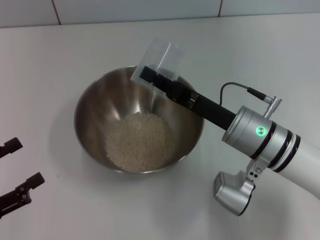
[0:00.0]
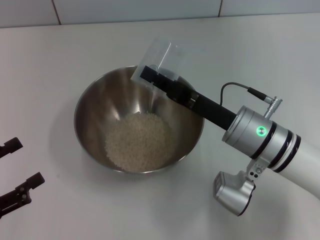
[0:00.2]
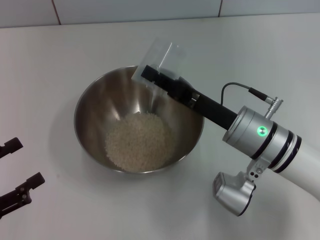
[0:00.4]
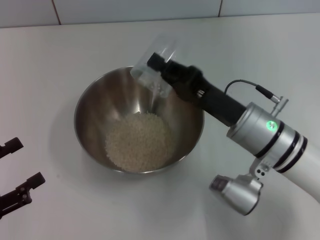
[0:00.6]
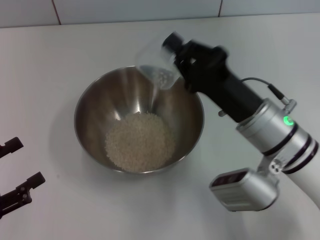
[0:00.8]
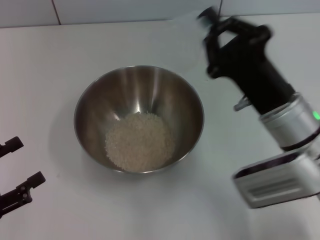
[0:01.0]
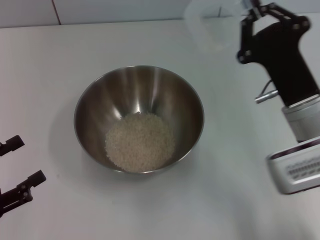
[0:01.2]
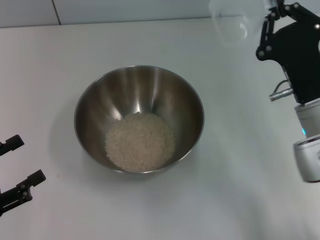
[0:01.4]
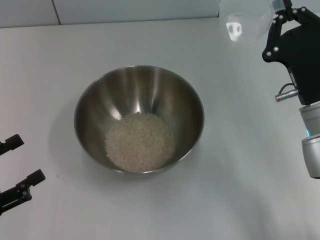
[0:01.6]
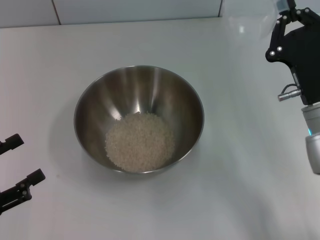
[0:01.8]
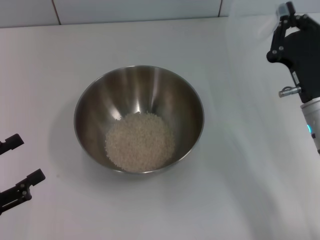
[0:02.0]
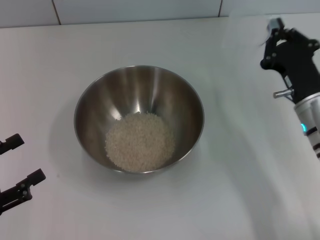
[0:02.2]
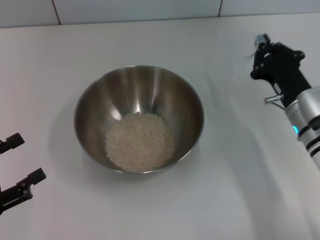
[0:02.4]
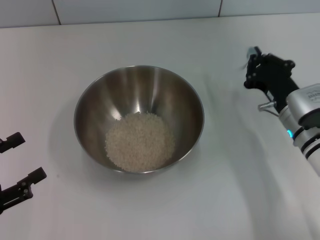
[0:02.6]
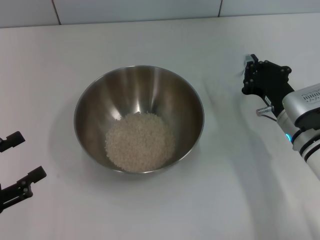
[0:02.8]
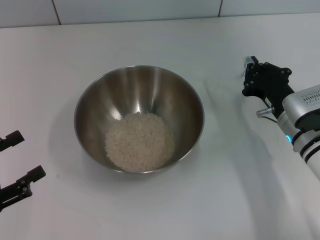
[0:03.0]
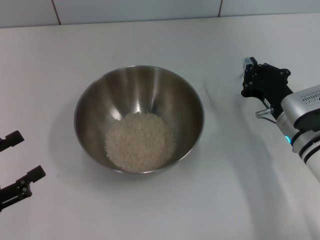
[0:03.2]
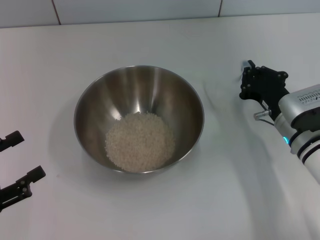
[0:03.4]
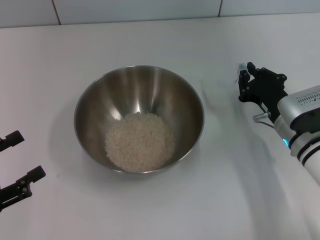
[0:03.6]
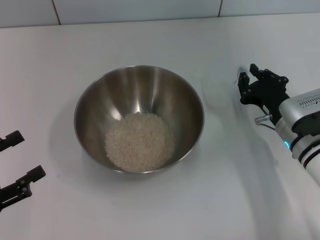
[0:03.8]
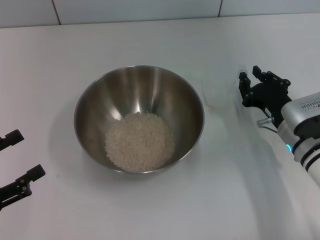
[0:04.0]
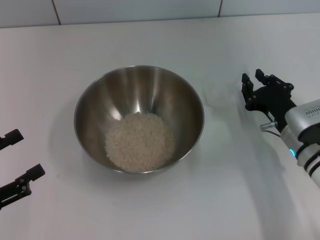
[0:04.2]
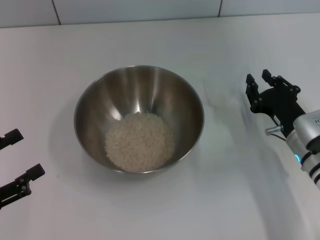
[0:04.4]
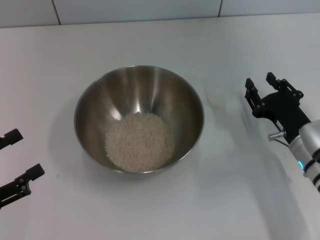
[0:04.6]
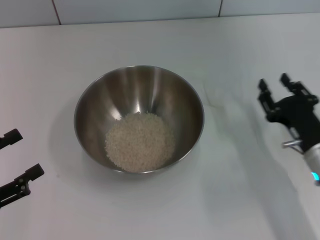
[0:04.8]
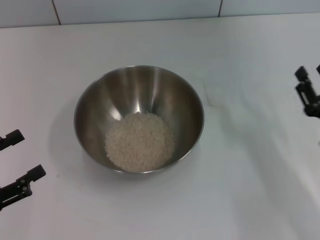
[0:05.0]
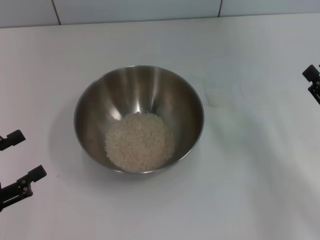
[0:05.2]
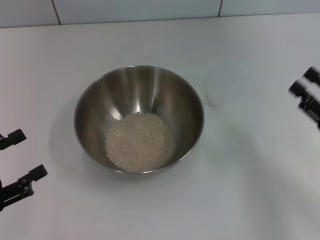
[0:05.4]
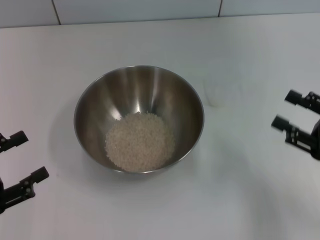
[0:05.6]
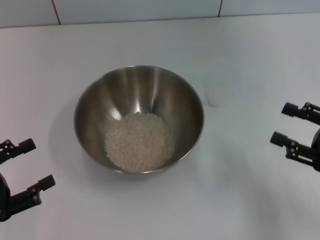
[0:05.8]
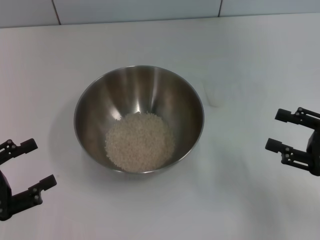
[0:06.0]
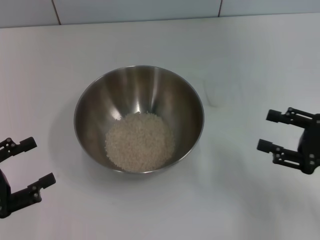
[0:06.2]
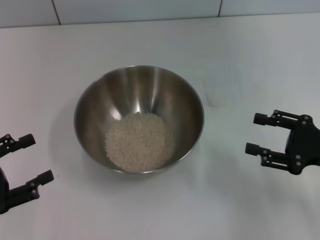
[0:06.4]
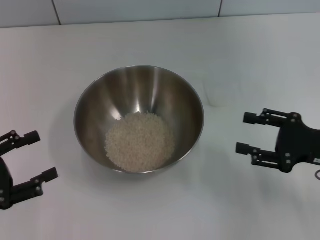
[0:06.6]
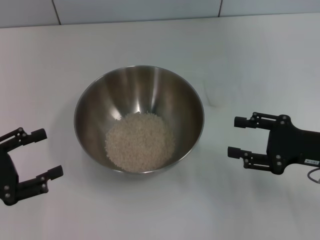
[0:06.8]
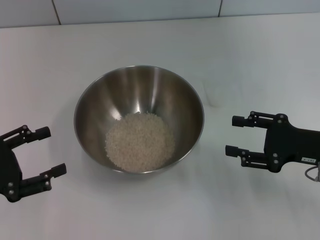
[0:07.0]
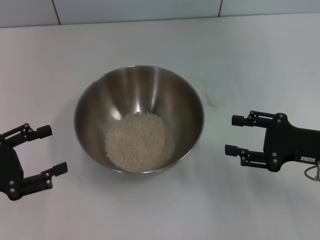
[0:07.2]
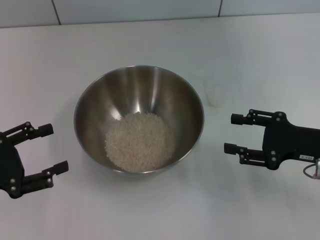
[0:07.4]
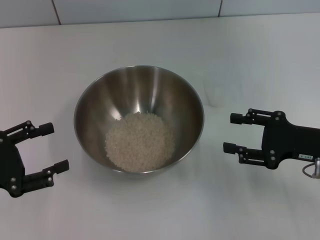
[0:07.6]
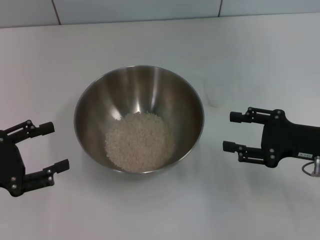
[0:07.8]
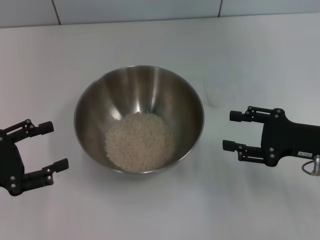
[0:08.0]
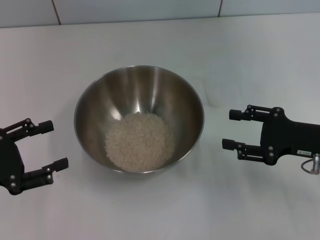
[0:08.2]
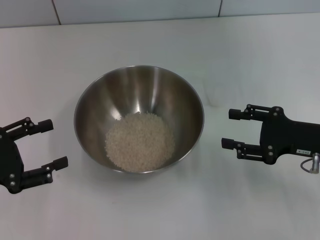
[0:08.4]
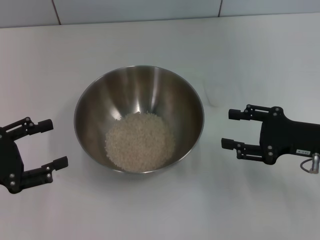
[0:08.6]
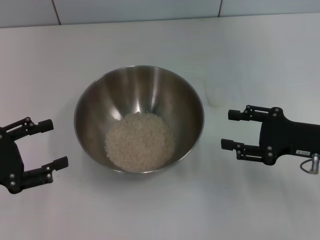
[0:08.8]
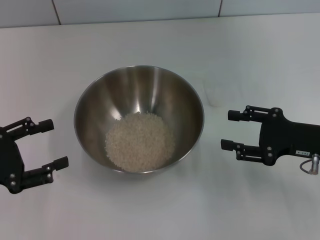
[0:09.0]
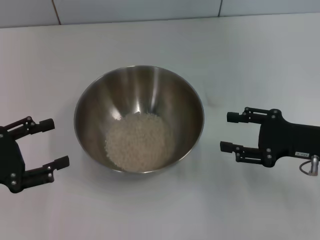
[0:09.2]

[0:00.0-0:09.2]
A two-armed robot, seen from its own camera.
Task of the whole recording: Place the bowl in the middle of the table with one hand and pour the rice from the grain cup into it with the other hand.
Step, 0:01.2 to 0:04.4: Place the cup on the table with the right gripper.
0:00.0 to 0:01.6: The right gripper shifts about 5 cm to the right.
0:01.6 to 0:03.0: The right gripper travels downward by roughly 5 cm.
0:03.0 to 0:04.6: The right gripper opens its fingers.
0:04.6 to 0:06.2: The right gripper travels to the right and upward by some 10 cm, and opens.
0:06.2 to 0:07.6: The right gripper shifts by some 5 cm.
0:07.6 to 0:09.2: The two grippers keep their place.

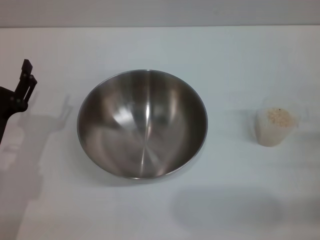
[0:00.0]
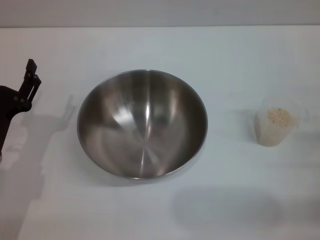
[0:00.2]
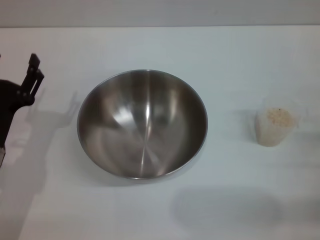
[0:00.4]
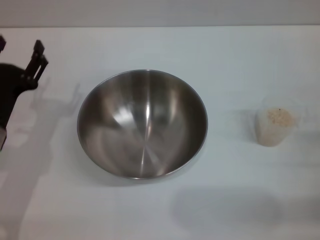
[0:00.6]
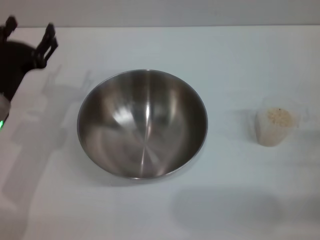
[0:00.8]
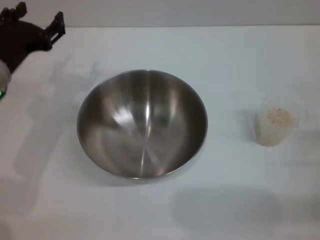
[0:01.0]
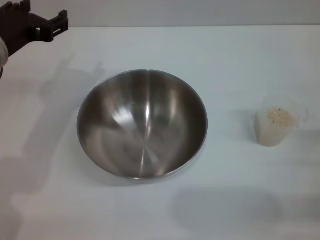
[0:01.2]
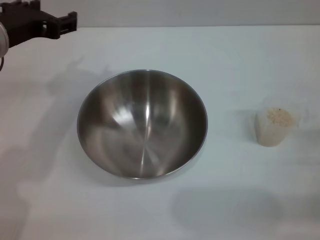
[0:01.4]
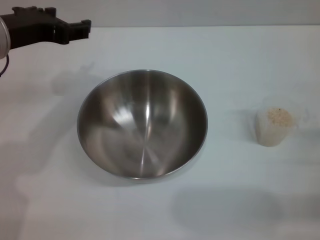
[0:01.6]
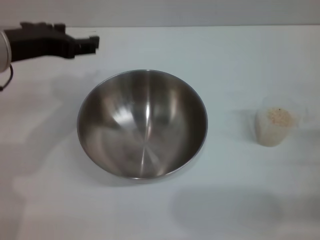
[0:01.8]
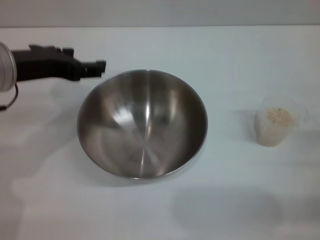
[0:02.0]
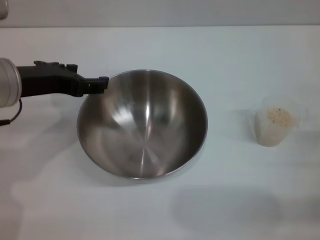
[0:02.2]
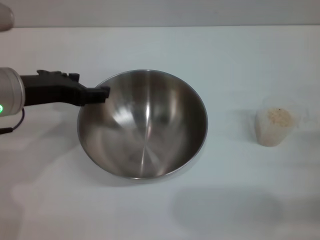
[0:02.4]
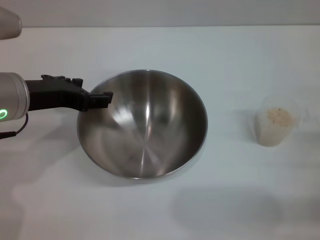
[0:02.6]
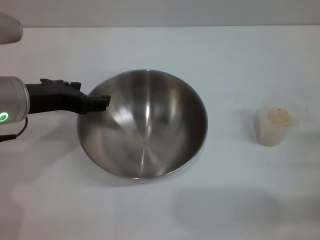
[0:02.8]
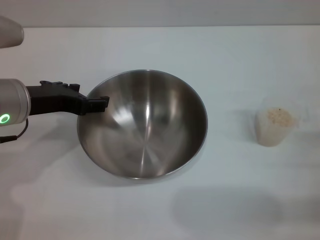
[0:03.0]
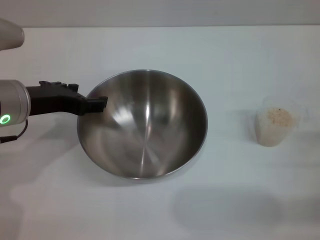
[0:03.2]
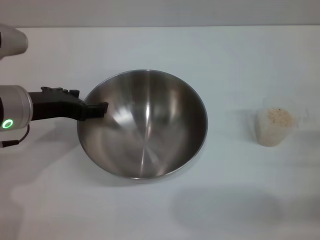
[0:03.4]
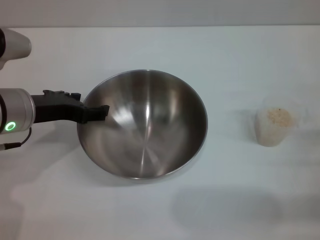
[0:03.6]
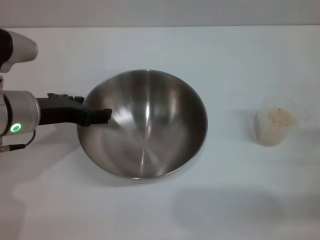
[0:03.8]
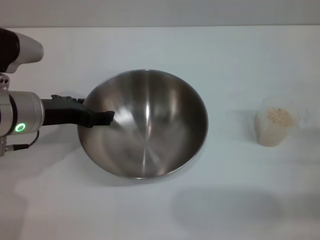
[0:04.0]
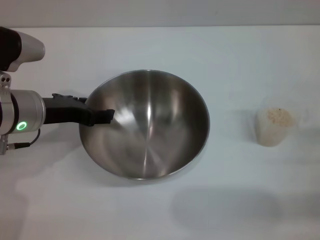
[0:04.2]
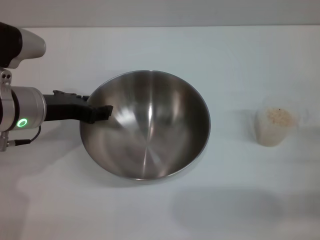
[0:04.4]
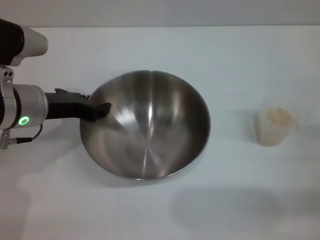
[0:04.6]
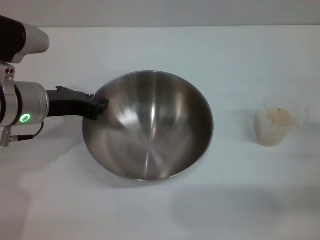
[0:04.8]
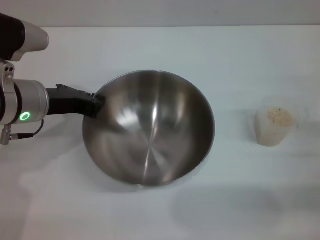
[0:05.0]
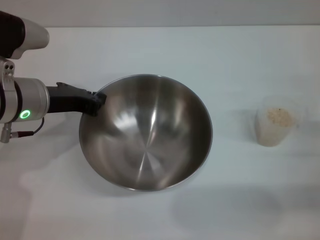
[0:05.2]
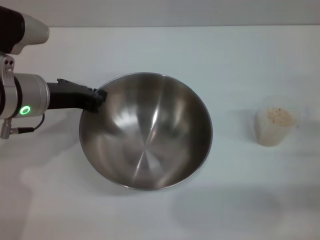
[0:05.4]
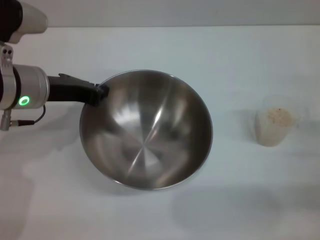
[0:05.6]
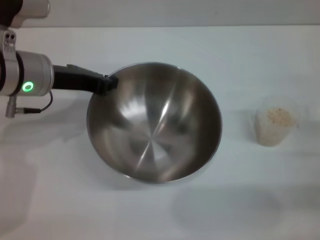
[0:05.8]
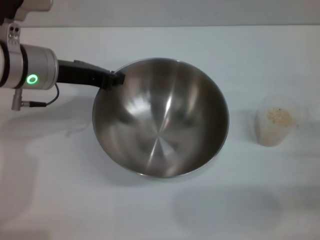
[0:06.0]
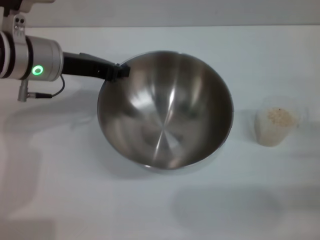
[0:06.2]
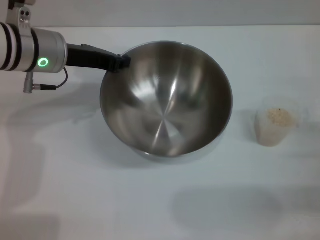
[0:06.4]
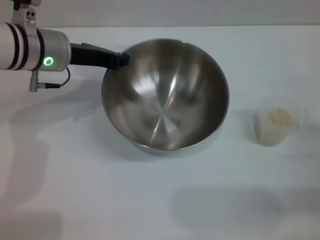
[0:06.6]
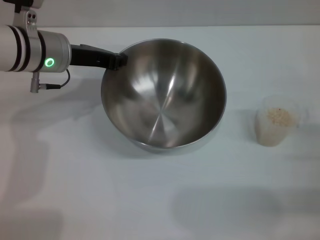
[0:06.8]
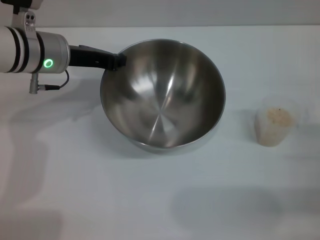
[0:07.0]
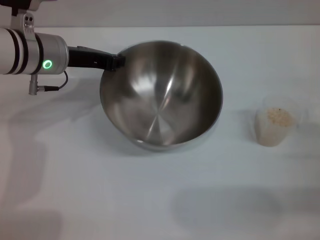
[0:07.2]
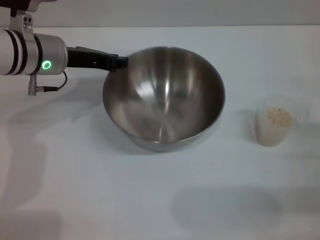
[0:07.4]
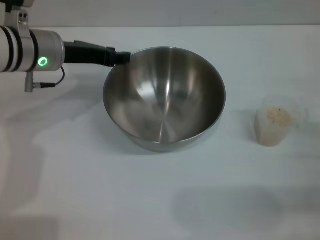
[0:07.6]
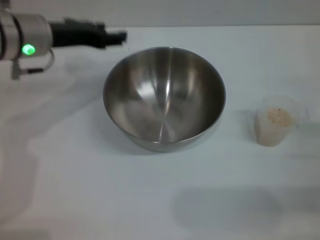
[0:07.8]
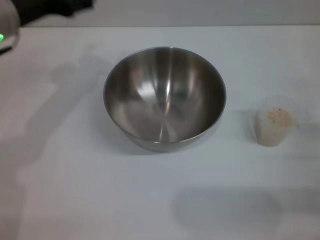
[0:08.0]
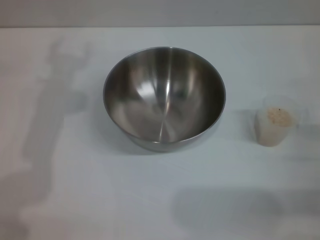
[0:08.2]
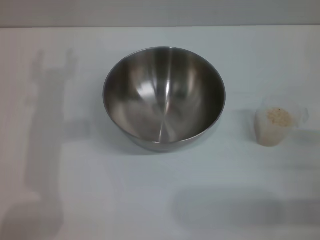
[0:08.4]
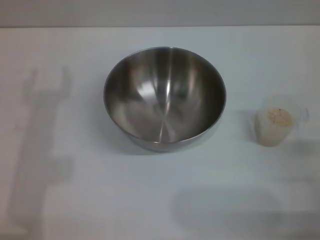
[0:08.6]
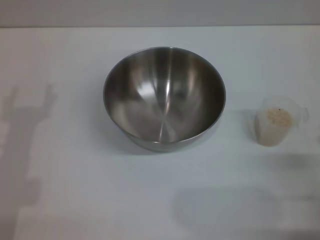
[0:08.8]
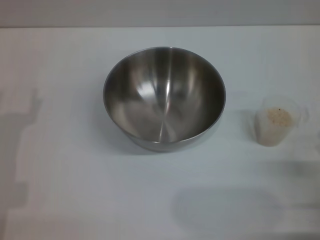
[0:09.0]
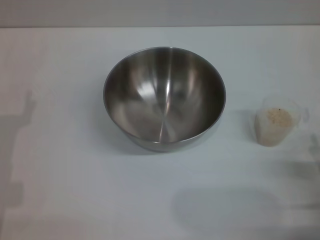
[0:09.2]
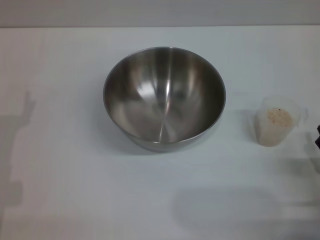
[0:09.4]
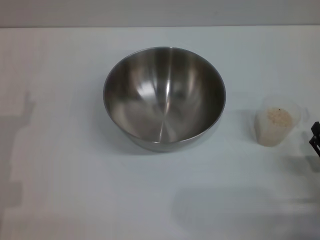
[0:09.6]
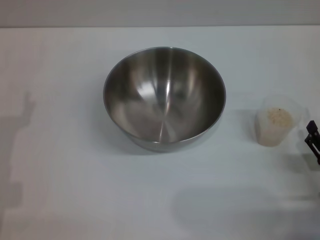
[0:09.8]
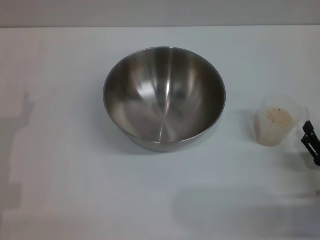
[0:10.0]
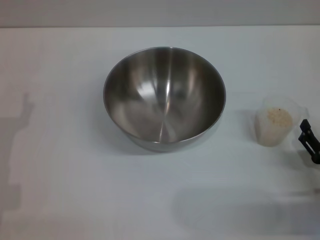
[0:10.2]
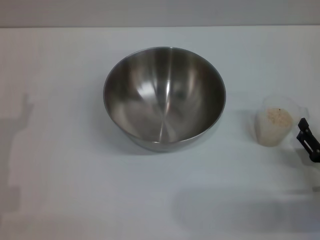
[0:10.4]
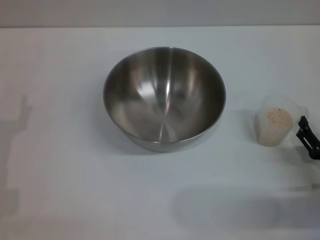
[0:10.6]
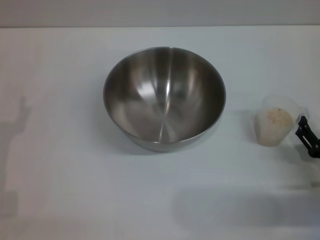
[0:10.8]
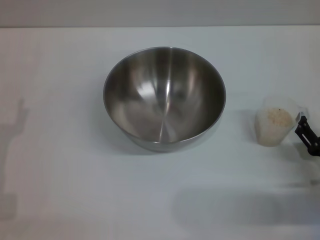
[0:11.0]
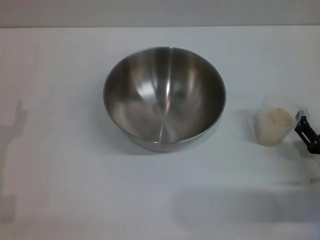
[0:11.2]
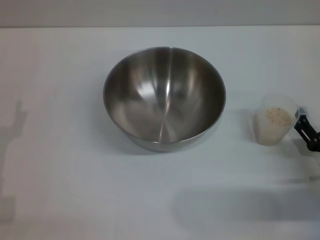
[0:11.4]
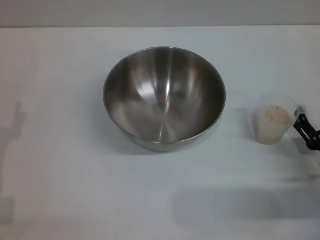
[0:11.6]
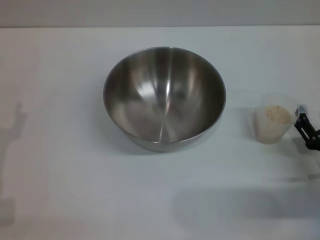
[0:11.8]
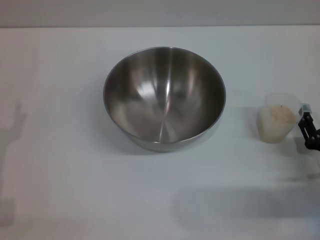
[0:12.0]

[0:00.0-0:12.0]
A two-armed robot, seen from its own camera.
Task of the whole recording: Place the bowl in the middle of the table with one hand and pour the rice from the grain cup into it with the other hand.
Step, 0:00.0 to 0:06.2: Pick up the bowl with the left gripper.
Step, 0:06.4 to 0:08.0: Place the bowl in the center of view with the left gripper.
0:00.0 to 0:01.6: The left gripper moves upward and forward, approximately 20 cm.
0:01.6 to 0:03.0: The left gripper travels downward by some 5 cm.
0:03.0 to 0:04.4: The grippers stay close to where they were, moving slightly.
0:04.4 to 0:06.0: The left gripper shifts by about 5 cm, and closes up.
0:06.0 to 0:07.6: The left gripper opens its fingers.
0:07.6 to 0:09.0: The left gripper shifts approximately 20 cm backward, to the left and downward, and opens its fingers. Meanwhile the right gripper goes approximately 5 cm backward.
0:09.0 to 0:10.4: There are only small adjustments of the grippers.
0:10.4 to 0:12.0: There are only small adjustments of the grippers.

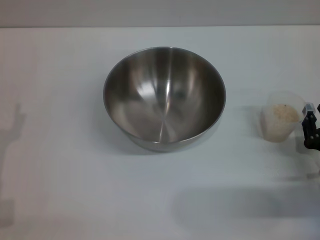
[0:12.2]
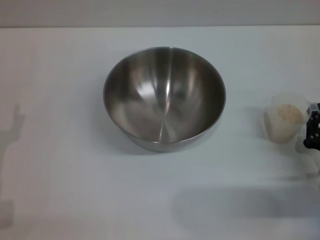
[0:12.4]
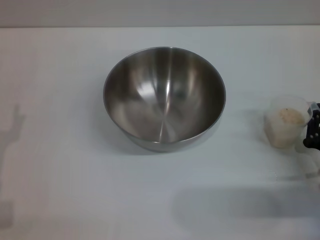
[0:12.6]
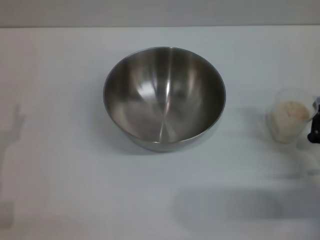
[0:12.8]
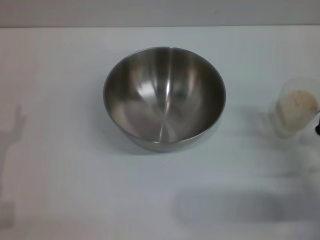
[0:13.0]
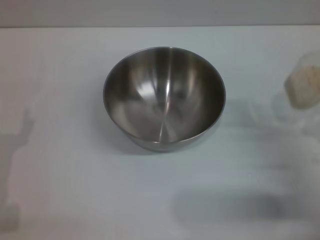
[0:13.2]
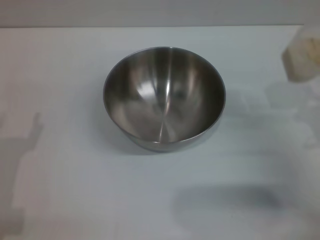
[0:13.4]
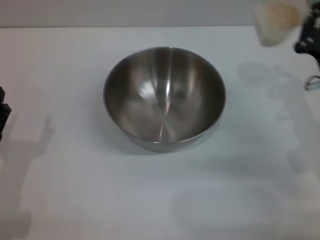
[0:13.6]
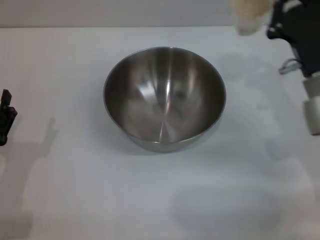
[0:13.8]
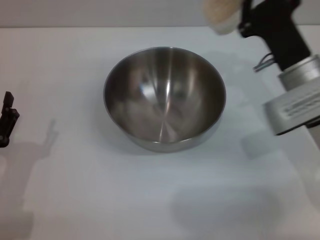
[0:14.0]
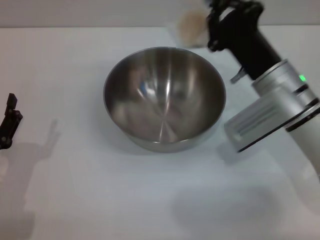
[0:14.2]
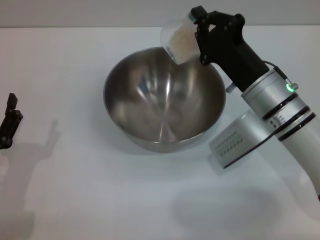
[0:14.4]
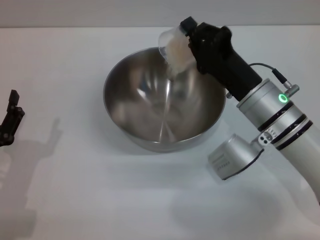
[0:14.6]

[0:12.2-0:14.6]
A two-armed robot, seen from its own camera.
Task of the whole recording: Place the bowl in the middle of the table with one hand and pour the rice from the grain cup into it with the other hand.
0:12.2 to 0:13.4: The right gripper moves upward, roughly 5 cm, and closes up.
0:13.4 to 0:14.6: The right gripper goes about 15 cm to the left and forward.
